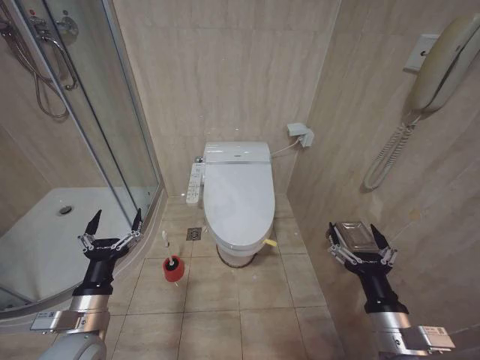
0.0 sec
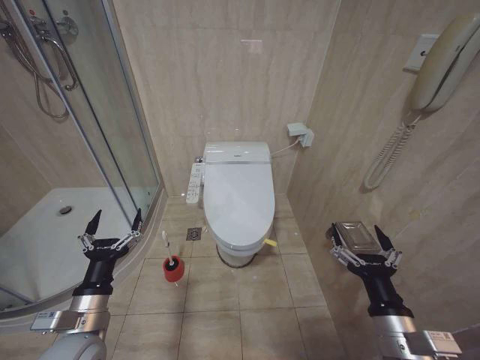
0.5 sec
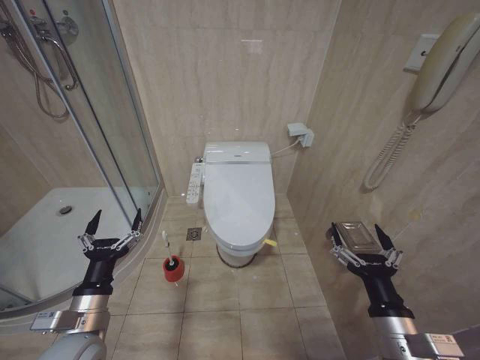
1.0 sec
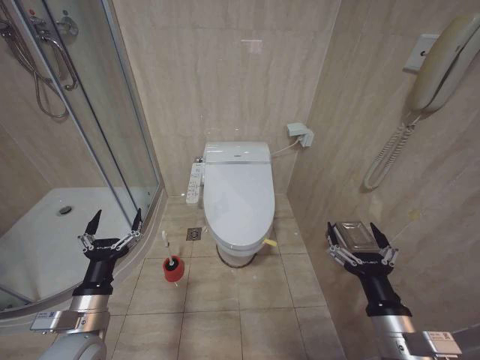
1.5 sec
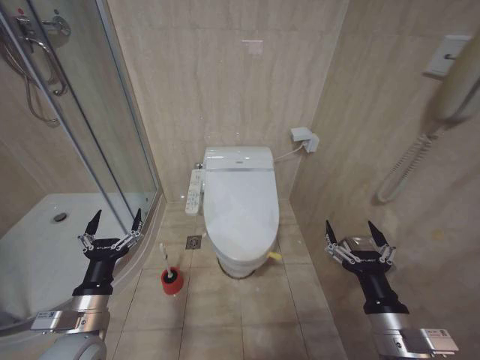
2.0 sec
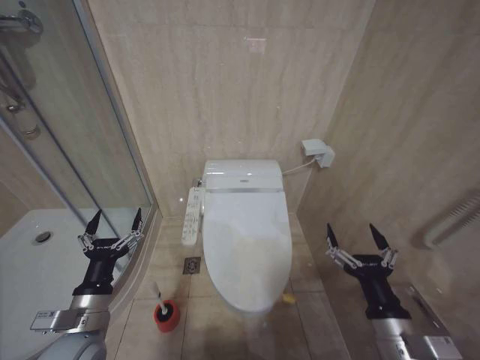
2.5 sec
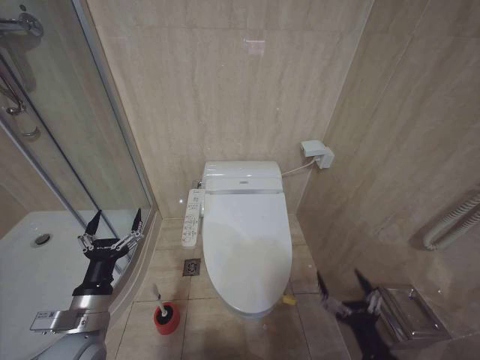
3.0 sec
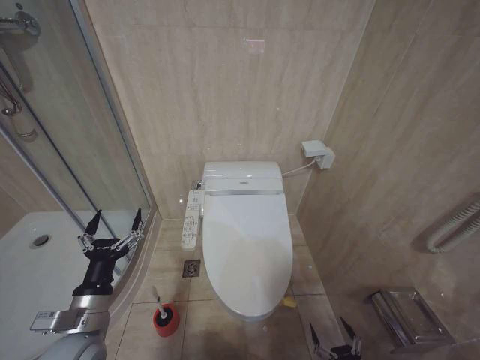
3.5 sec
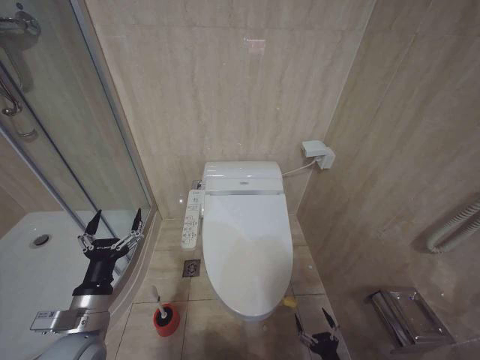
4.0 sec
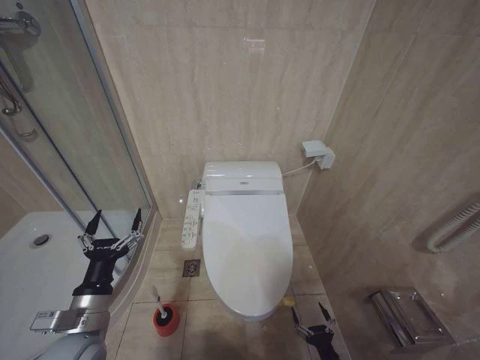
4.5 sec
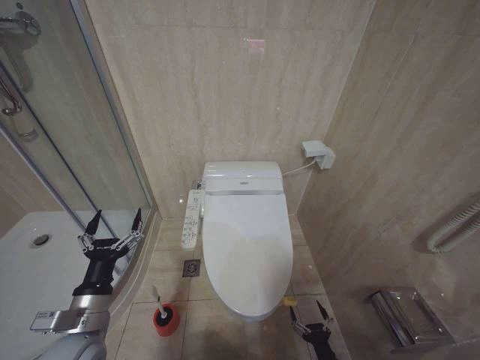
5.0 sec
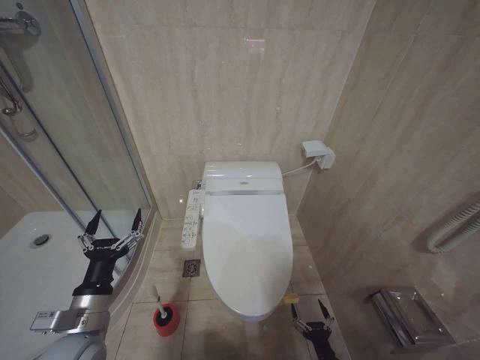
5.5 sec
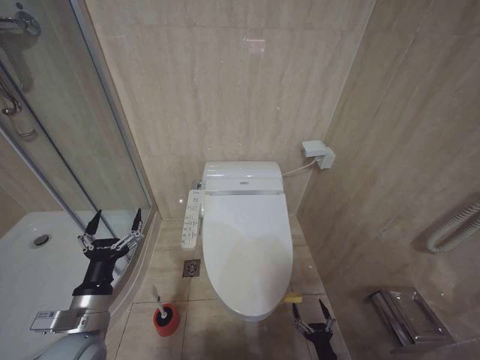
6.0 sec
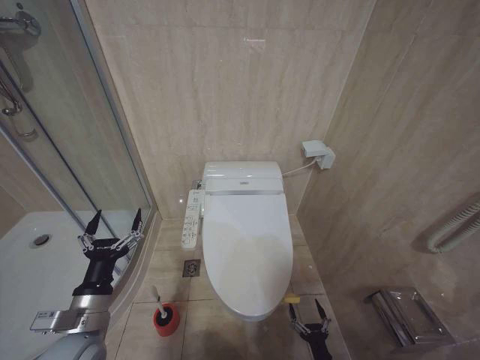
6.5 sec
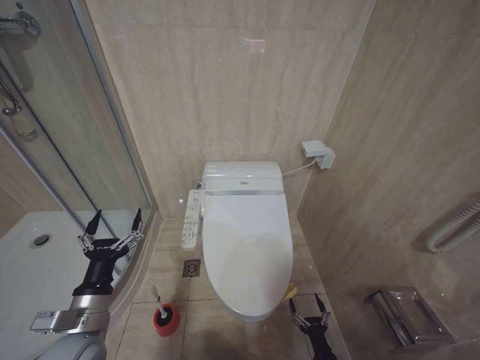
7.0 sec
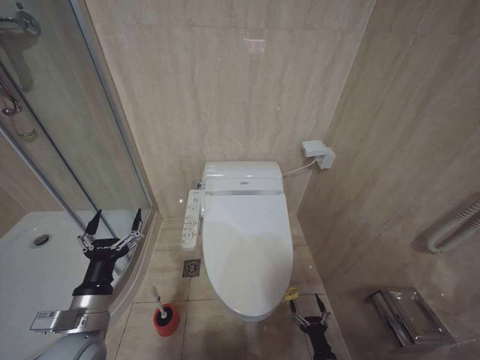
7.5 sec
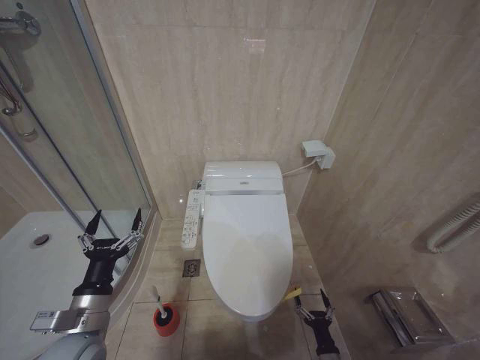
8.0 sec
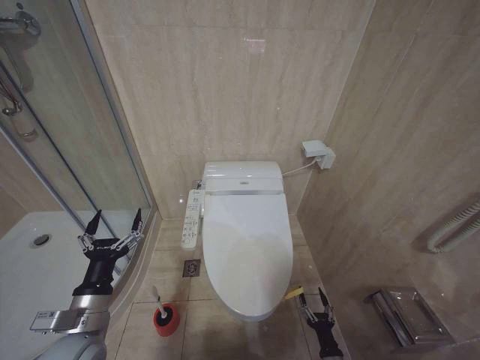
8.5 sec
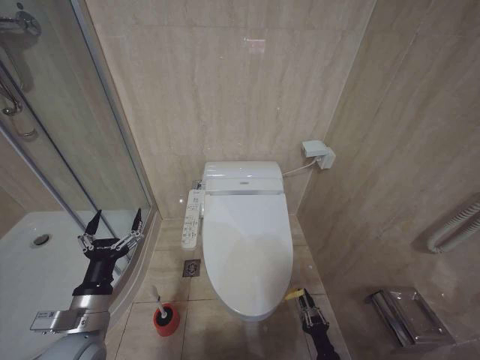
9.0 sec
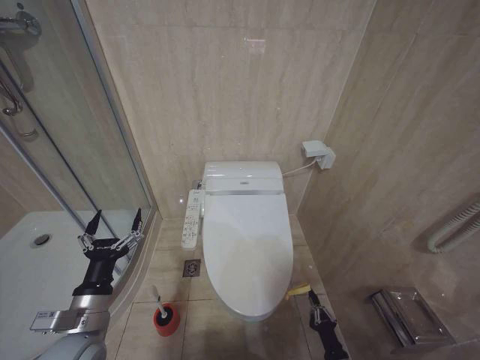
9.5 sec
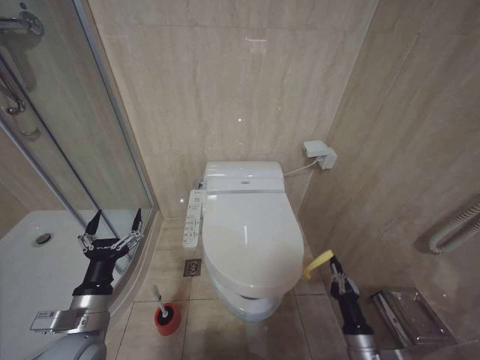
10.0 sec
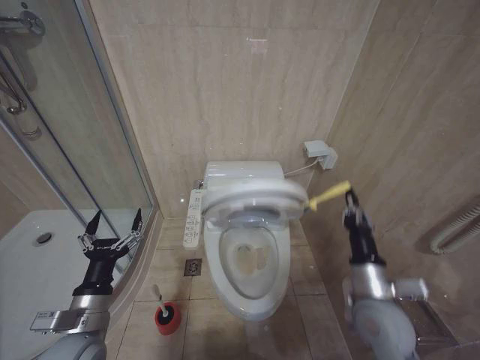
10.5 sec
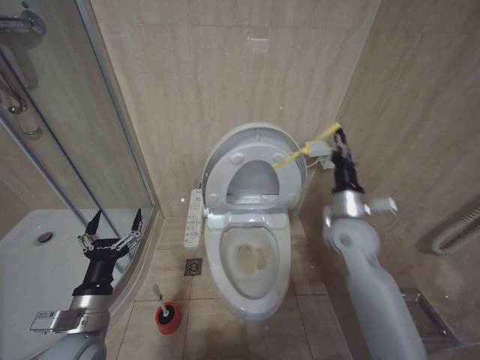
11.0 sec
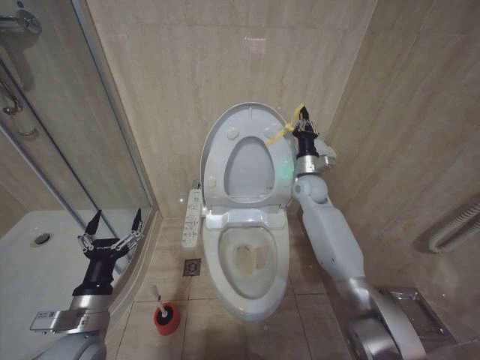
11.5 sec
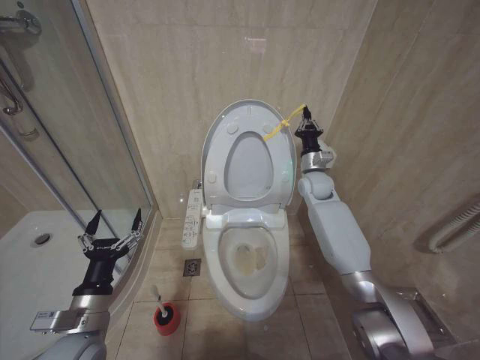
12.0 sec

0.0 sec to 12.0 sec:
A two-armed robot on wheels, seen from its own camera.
Task of the whole recording: Open the toilet lid, clean the toilet bowl with a toilet brush, close the toilet lid, and flush.
2.0 sec to 4.0 sec: The right gripper moves downward, roughly 30 cm.
8.0 sec to 10.0 sec: The right gripper shifts some 15 cm upward, and closes its fingers.
10.0 sec to 12.0 sec: The right gripper is displaced forward and upward by some 50 cm.

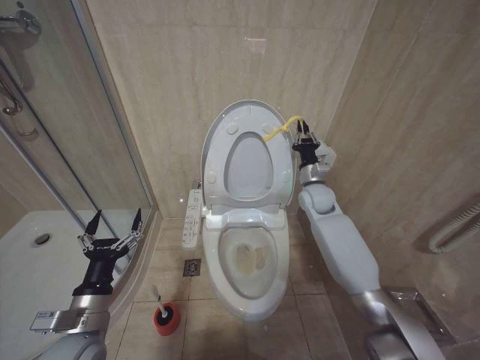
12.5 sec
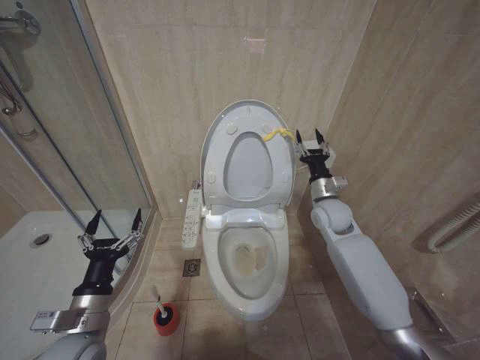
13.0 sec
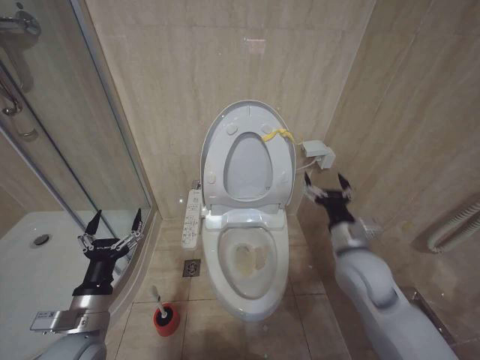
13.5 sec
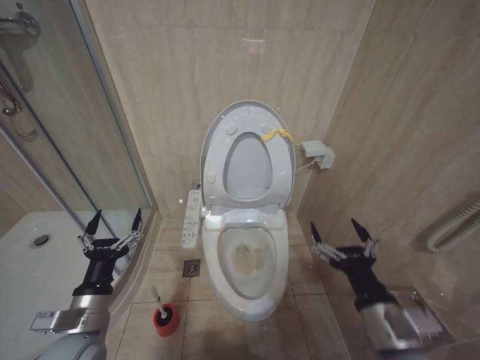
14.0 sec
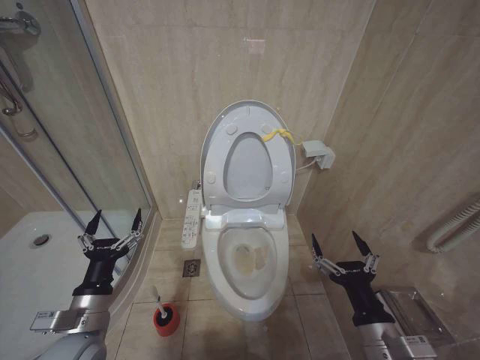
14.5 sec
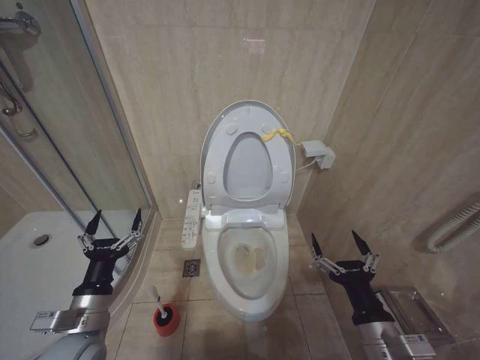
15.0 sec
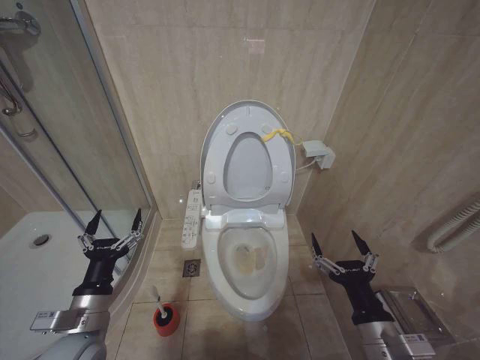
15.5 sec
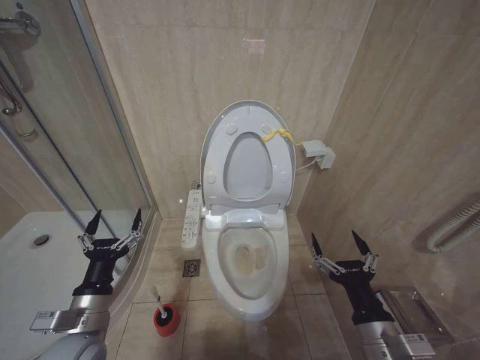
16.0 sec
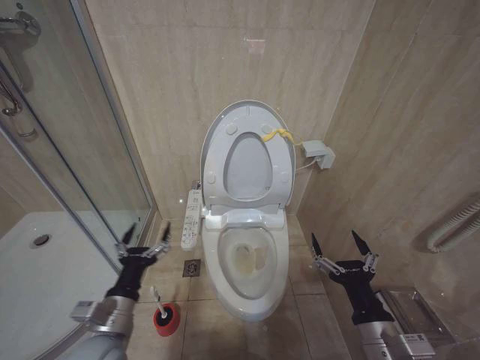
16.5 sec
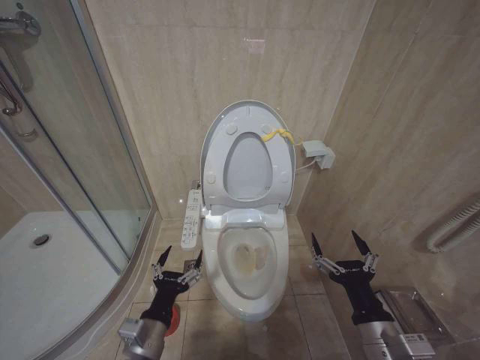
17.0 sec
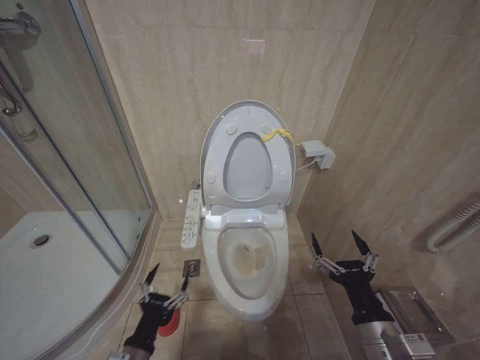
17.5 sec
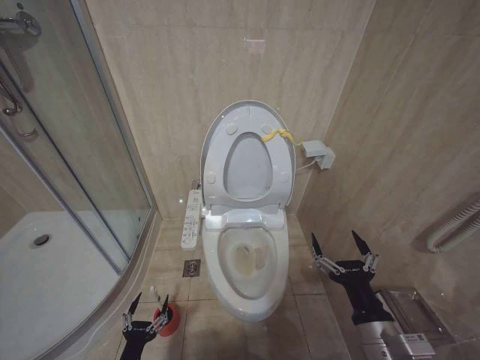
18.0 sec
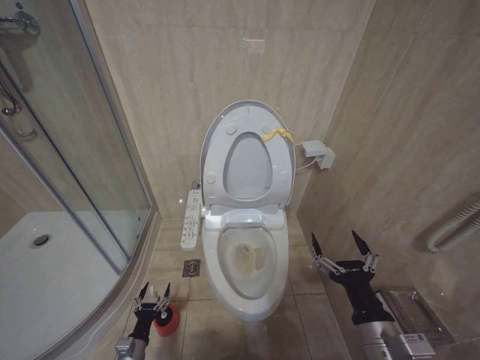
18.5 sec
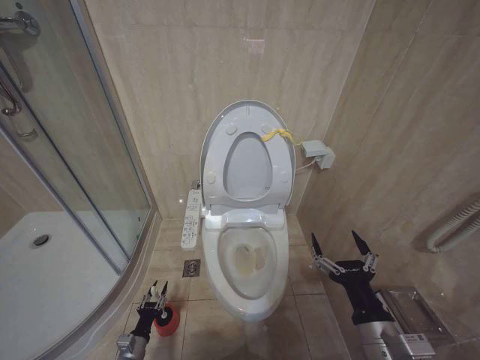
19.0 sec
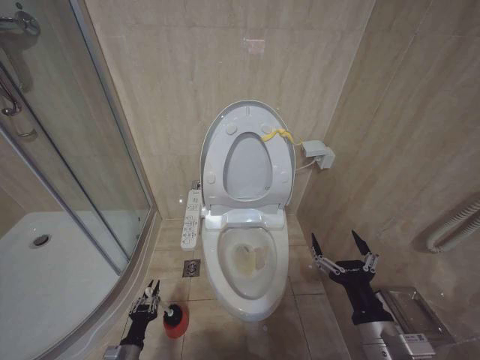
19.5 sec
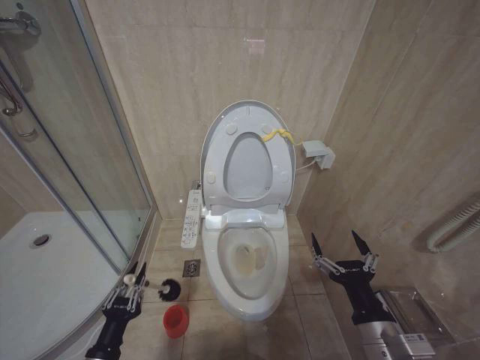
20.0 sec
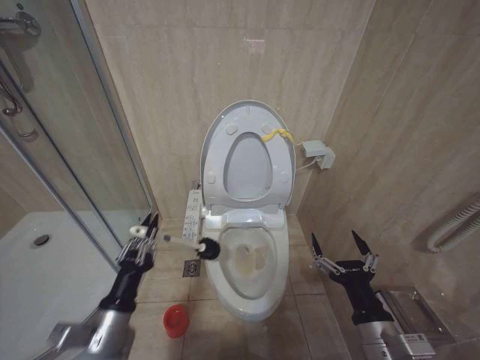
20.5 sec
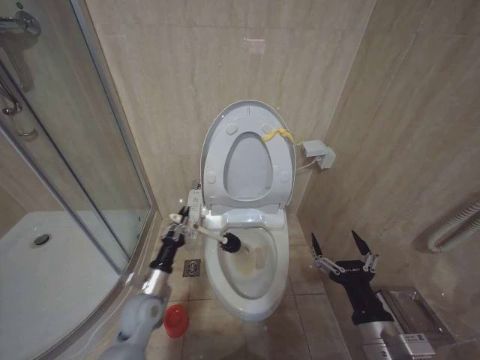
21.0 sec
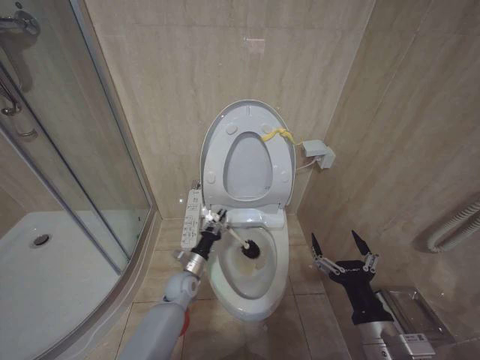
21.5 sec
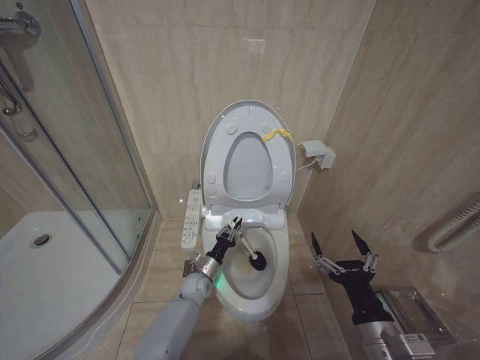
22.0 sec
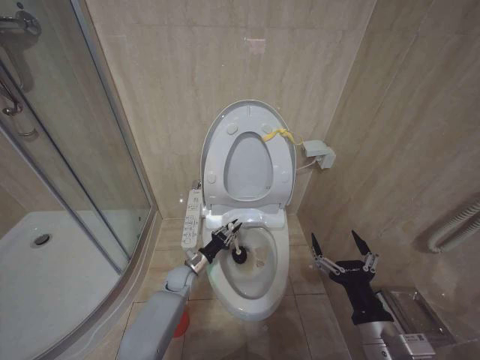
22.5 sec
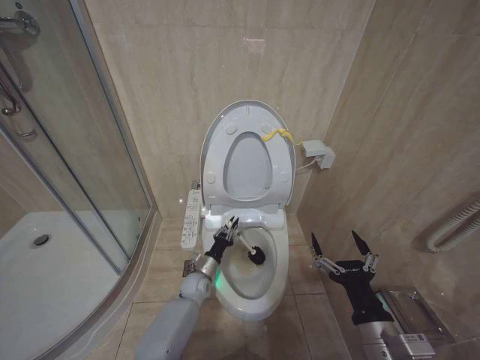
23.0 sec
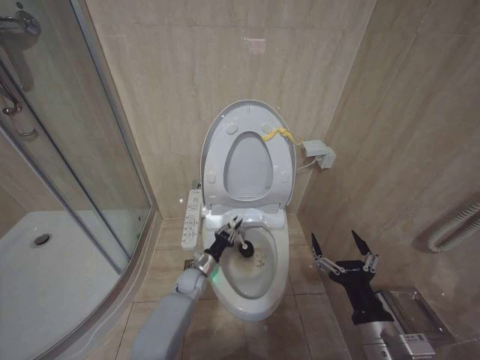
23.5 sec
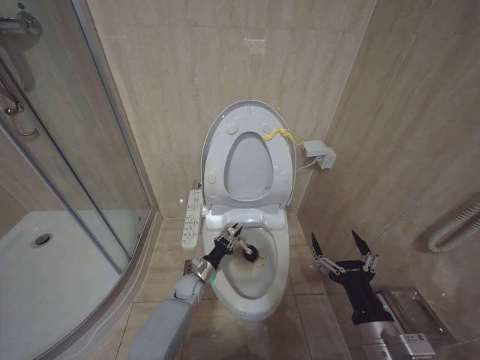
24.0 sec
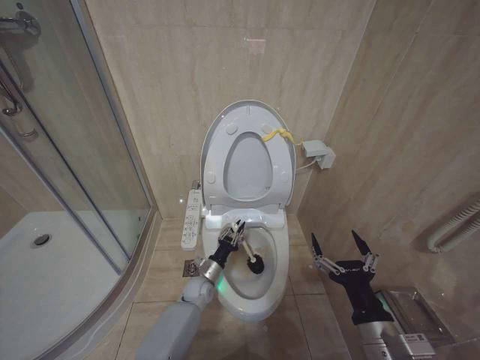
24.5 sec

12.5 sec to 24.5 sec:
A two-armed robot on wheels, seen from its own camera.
Task of the whole recording: Open the toilet lid, clean the toilet bowl with a toilet brush, close the toilet lid, and flush.
12.5 sec to 14.5 sec: The right gripper travels backward by about 40 cm, and opens its fingers.
14.5 sec to 16.5 sec: The grippers stay close to where they were, moving slightly.
16.5 sec to 18.5 sec: The left gripper is displaced downward by some 30 cm.
18.5 sec to 20.5 sec: The left gripper is displaced upward by about 25 cm, and closes.
20.5 sec to 22.5 sec: The left gripper travels forward and downward by some 35 cm.
22.5 sec to 24.5 sec: The left gripper shifts about 5 cm to the right.

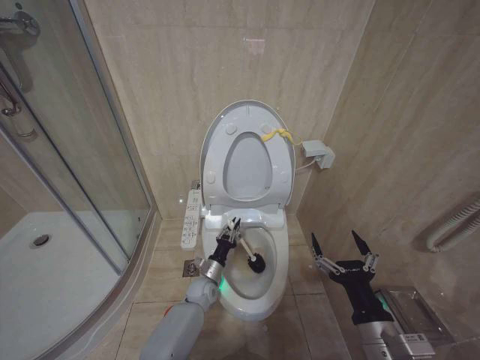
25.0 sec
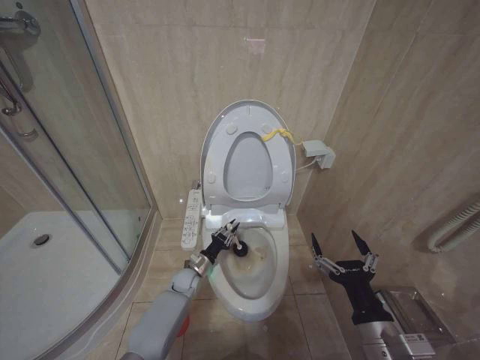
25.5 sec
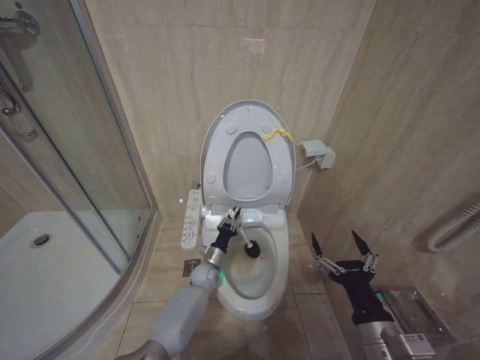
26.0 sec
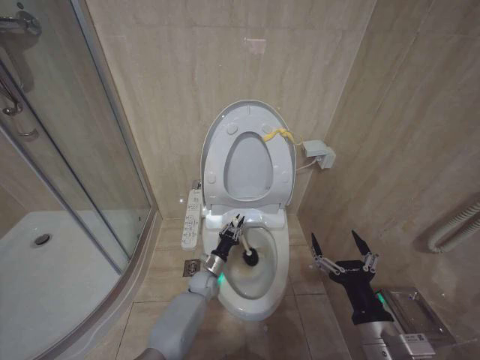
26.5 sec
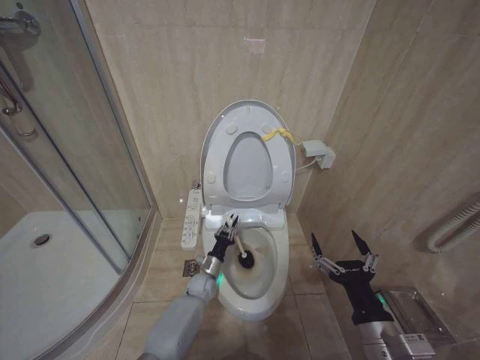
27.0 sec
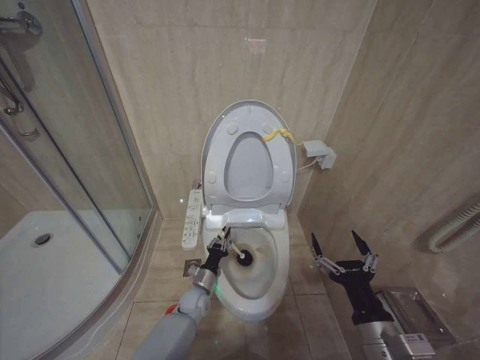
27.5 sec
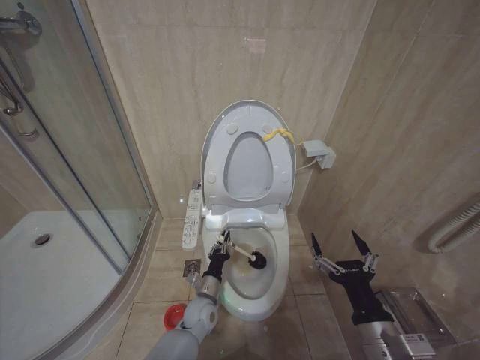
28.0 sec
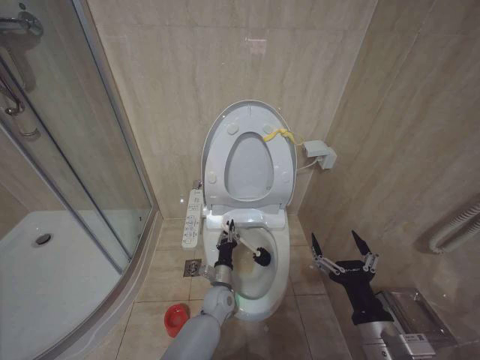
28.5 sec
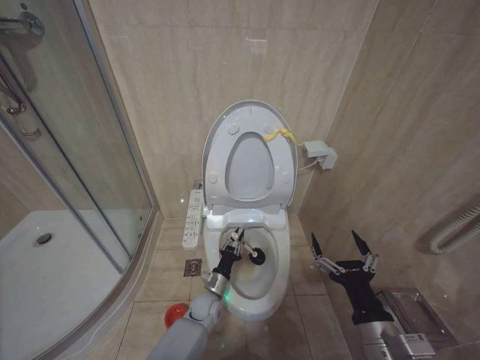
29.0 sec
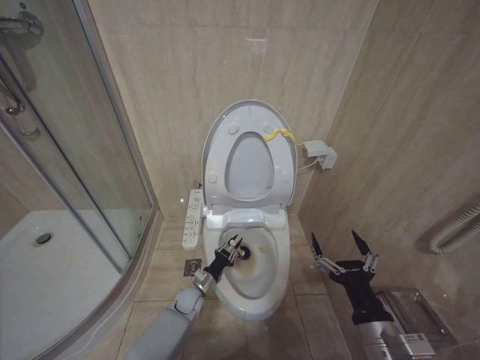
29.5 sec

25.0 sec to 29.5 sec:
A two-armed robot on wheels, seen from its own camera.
Task of the whole recording: Open the toilet lid, clean the toilet bowl with a toilet brush, close the toilet lid, and flush.
27.0 sec to 29.5 sec: The left gripper travels to the right and back again, roughly 5 cm each way.
